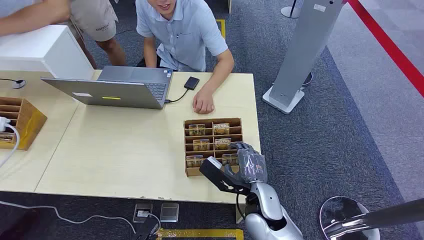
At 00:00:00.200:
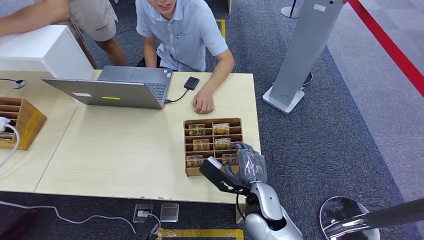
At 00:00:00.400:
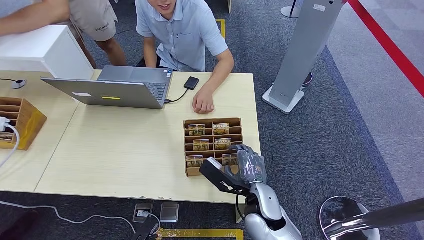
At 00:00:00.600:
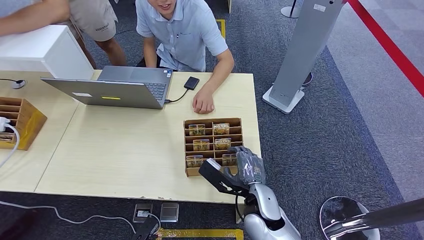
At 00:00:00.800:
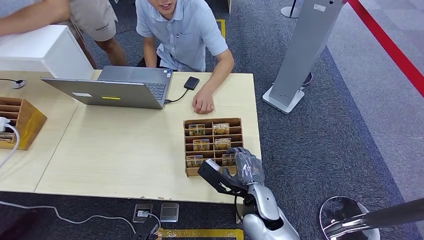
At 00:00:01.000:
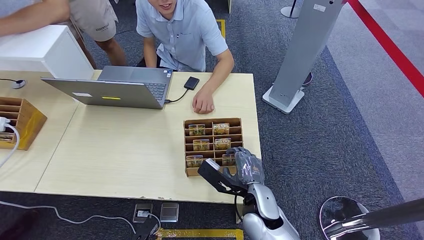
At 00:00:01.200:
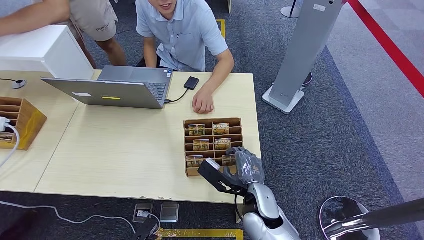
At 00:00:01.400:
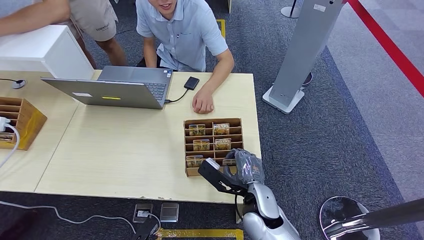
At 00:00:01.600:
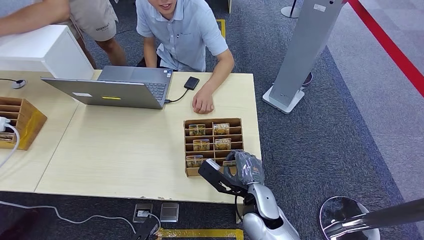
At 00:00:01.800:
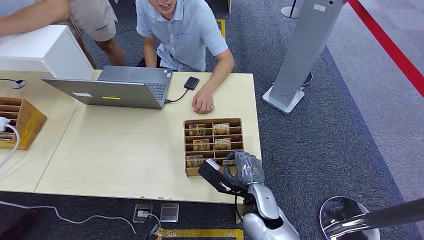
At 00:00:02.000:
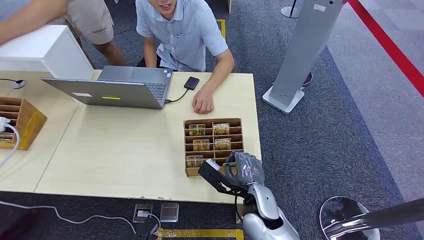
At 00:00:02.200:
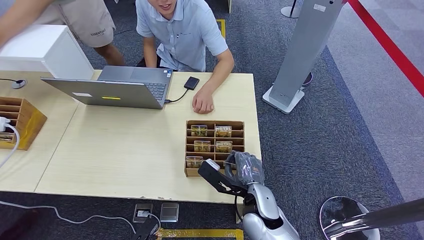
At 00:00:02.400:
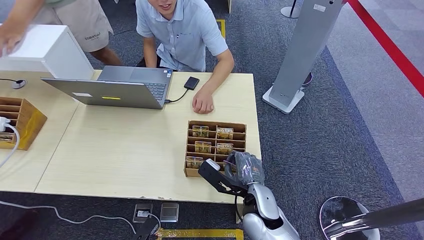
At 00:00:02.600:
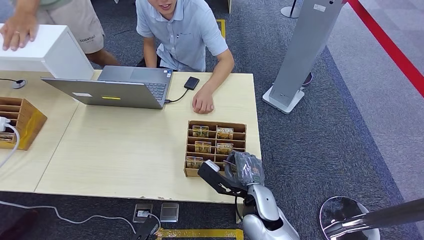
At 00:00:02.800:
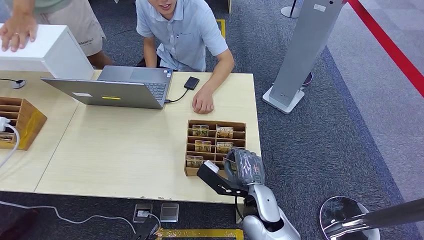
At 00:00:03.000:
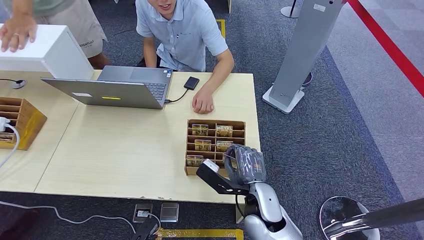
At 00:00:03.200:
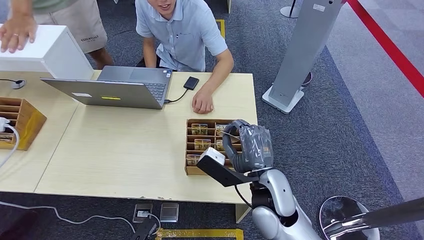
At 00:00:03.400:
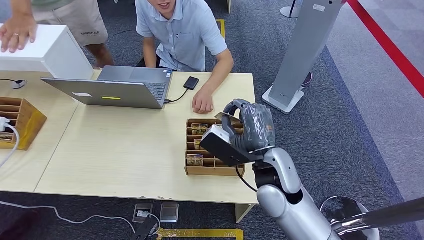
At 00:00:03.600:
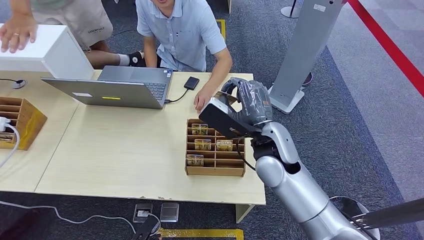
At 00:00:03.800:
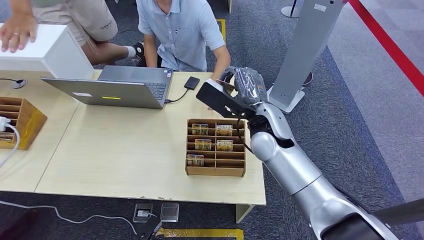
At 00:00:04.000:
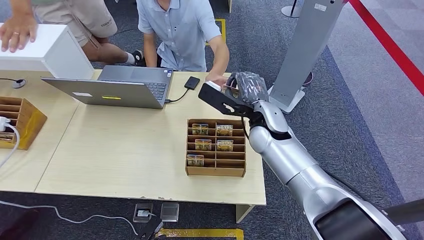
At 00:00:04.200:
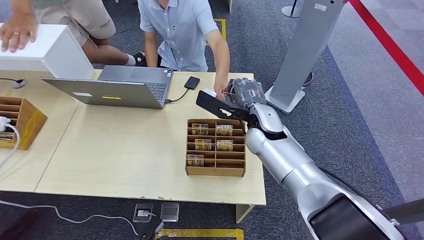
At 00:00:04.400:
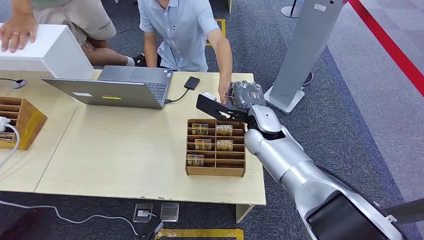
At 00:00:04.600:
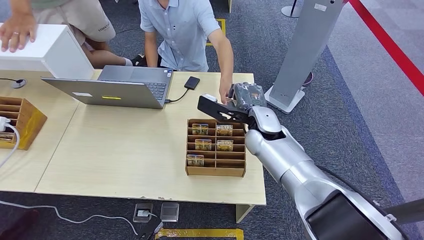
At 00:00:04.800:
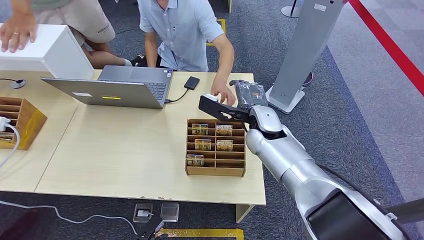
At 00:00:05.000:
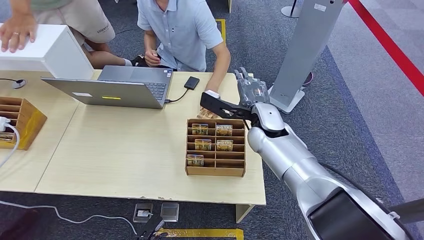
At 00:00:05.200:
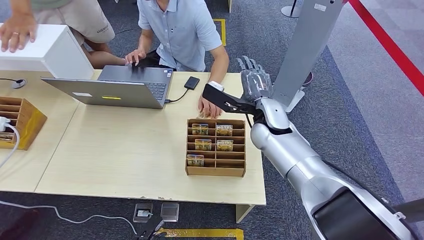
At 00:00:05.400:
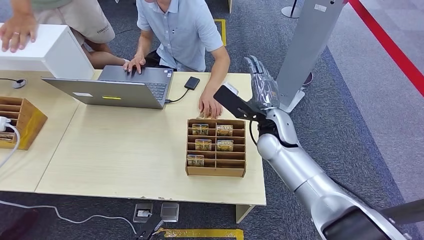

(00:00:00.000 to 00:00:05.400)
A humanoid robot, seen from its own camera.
Step, 00:00:00.000 - 00:00:03.000: Pick up the room card from the card holder.
Step, 00:00:04.000 - 00:00:05.400: Hand the room card to the target.
00:00:01.400 - 00:00:02.800: The hands make only small movements.
00:00:02.800 - 00:00:04.000: The right hand is displaced forward and upward by some 20 cm.
00:00:04.000 - 00:00:05.400: There are only small adjustments of the hands.

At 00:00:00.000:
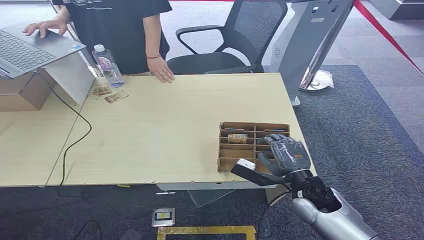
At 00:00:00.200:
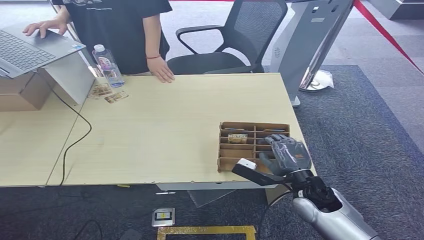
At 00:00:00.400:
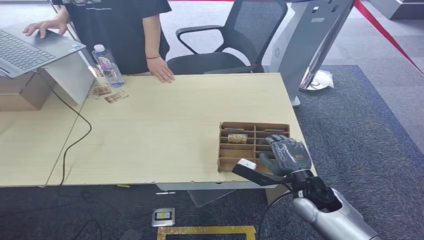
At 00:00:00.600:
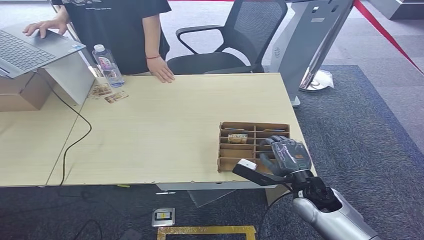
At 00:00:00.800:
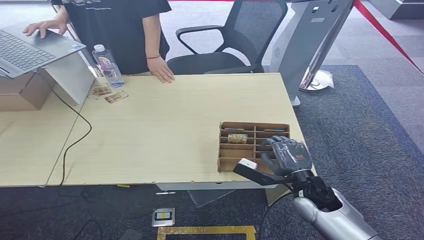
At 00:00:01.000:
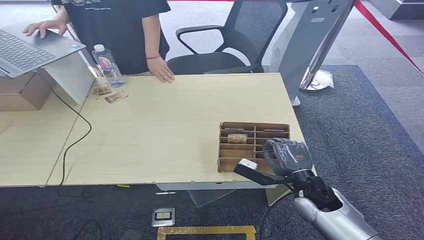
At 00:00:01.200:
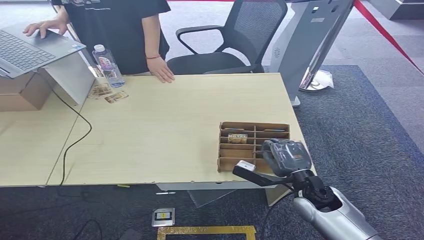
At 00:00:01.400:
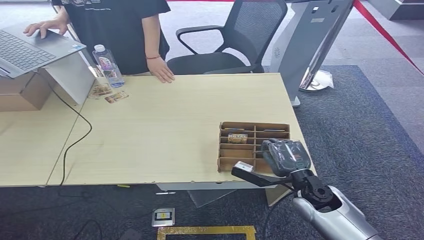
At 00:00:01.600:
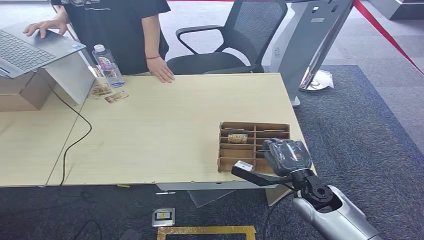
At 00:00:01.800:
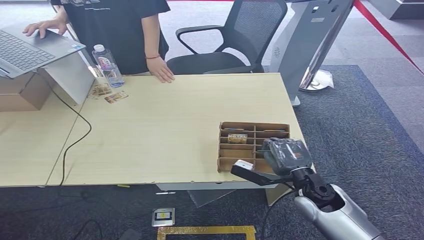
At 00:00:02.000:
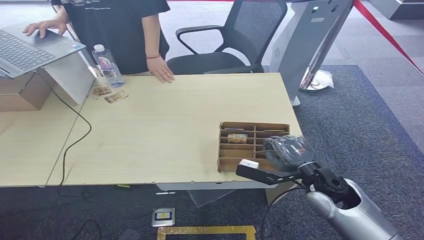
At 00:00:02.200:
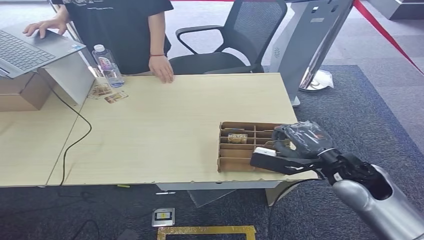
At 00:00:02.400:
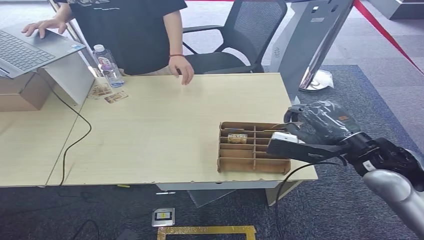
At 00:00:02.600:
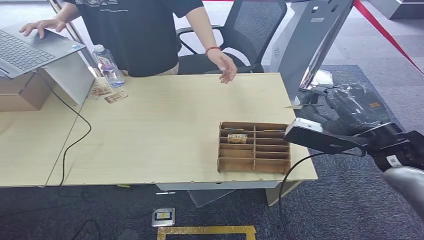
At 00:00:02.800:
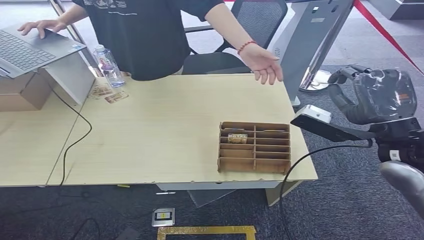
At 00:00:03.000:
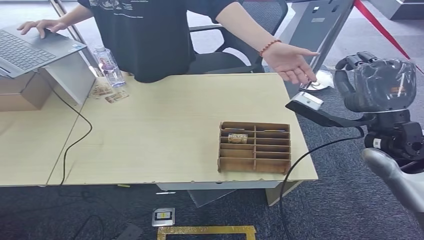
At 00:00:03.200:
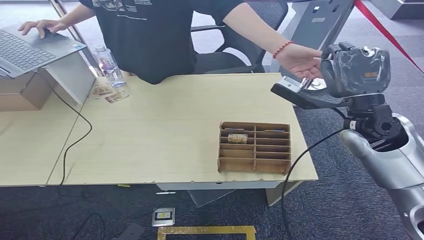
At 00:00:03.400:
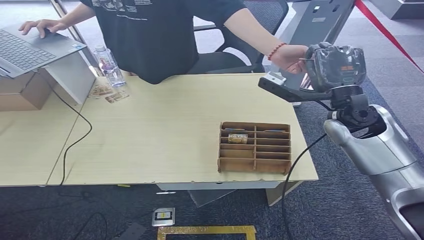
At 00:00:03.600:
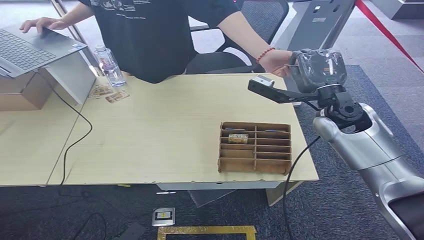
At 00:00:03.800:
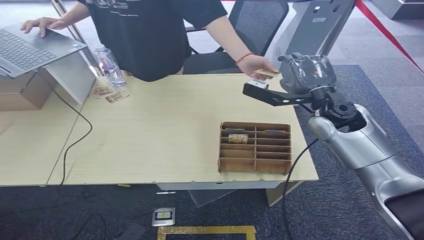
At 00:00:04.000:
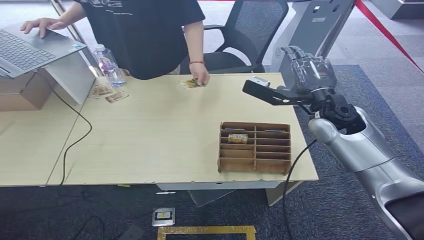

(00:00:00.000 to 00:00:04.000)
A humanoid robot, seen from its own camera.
Step, 00:00:00.000 - 00:00:02.000: Pick up the room card from the card holder.
Step, 00:00:02.400 - 00:00:04.000: Hand the room card to the target.
00:00:01.400 - 00:00:02.600: The right hand moves upward, roughly 20 cm.
00:00:02.600 - 00:00:04.000: The right hand travels forward and to the left by approximately 15 cm.

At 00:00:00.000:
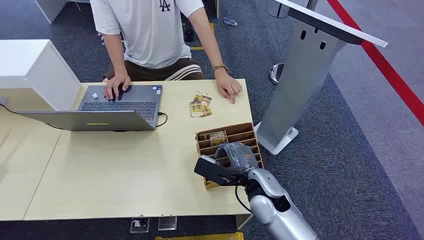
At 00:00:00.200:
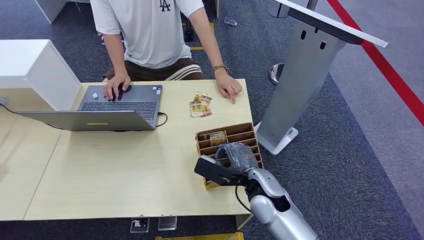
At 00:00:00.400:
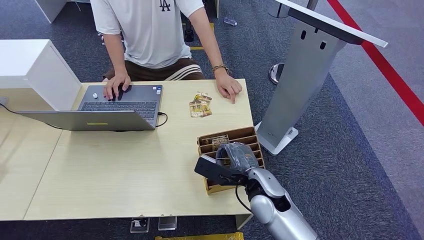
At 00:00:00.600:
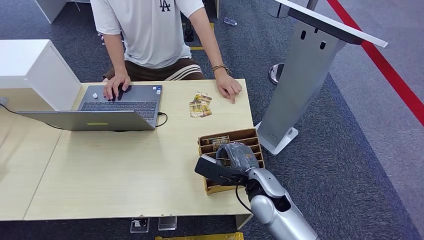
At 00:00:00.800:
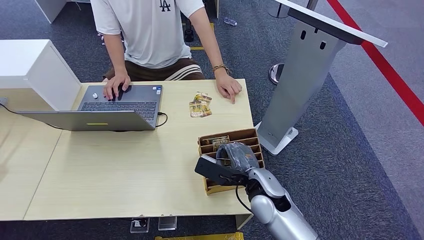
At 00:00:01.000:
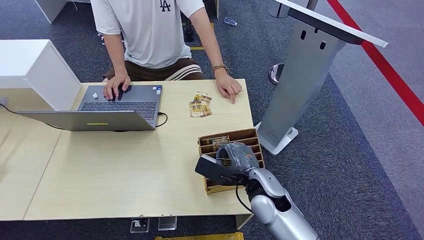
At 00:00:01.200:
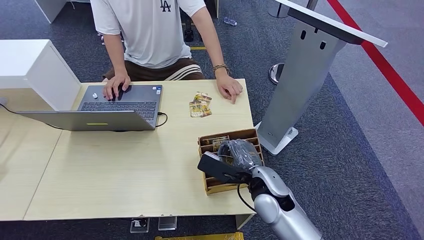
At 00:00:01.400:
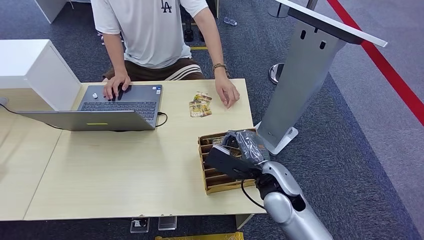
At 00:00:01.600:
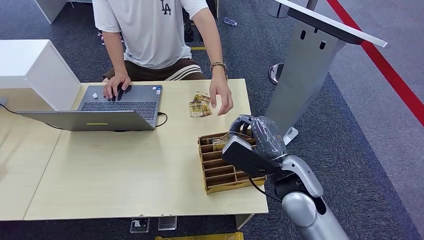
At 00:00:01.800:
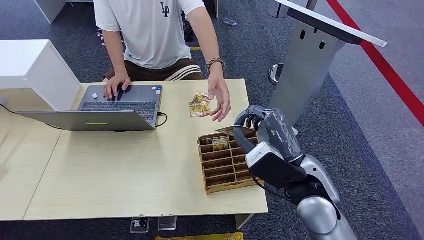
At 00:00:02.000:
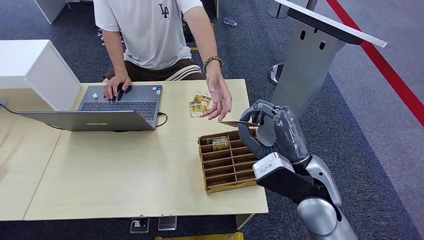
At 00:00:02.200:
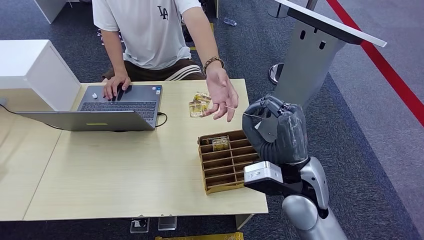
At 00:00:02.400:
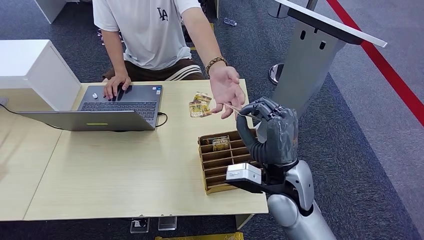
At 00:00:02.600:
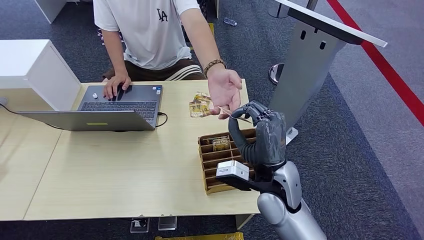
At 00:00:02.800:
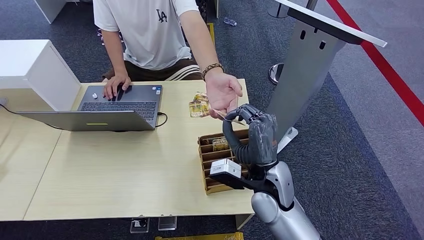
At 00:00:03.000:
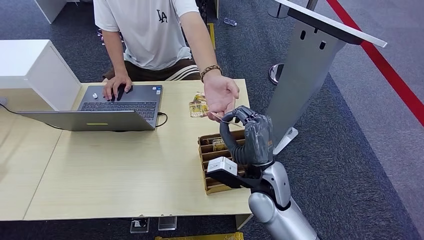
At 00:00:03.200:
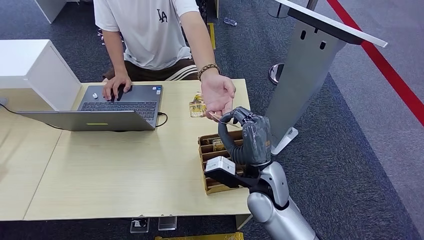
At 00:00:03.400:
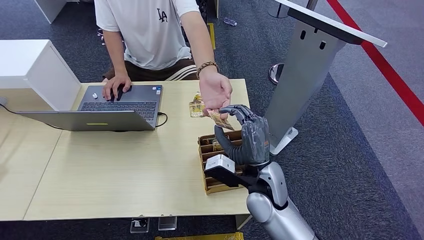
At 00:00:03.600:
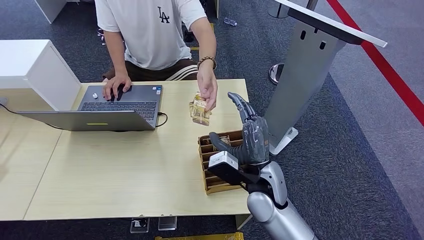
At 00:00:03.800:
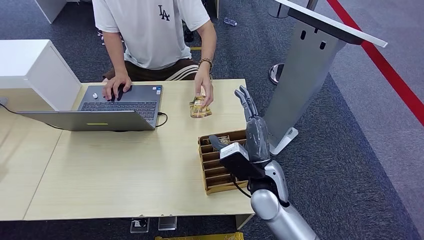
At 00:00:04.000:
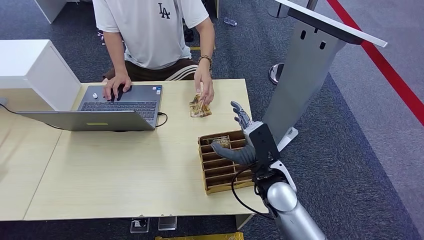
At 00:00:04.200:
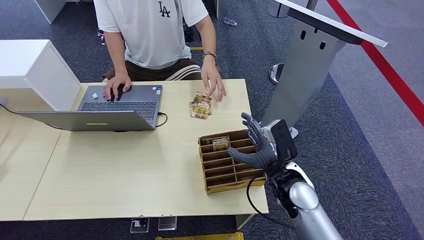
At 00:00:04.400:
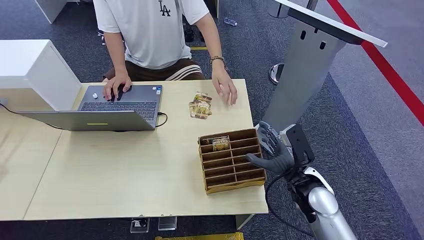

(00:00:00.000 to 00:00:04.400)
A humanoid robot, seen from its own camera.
Step, 00:00:00.000 - 00:00:01.400: Pick up the room card from the card holder.
Step, 00:00:01.600 - 00:00:04.200: Hand the room card to the target.
00:00:01.400 - 00:00:03.000: The right hand moves about 10 cm upward and comes back.
00:00:03.000 - 00:00:04.400: The right hand travels to the right by about 10 cm.
